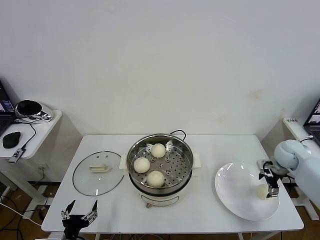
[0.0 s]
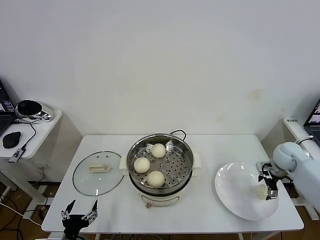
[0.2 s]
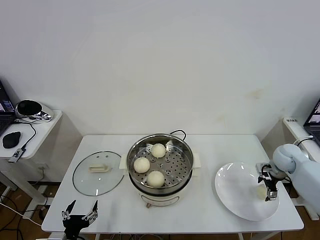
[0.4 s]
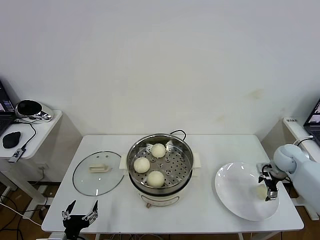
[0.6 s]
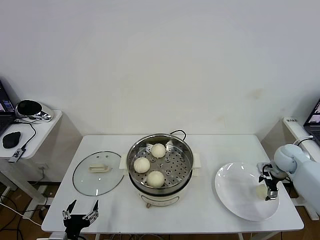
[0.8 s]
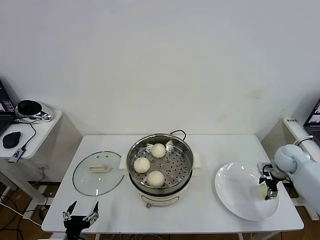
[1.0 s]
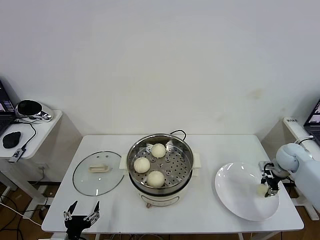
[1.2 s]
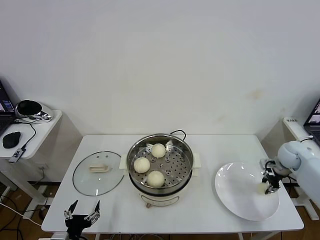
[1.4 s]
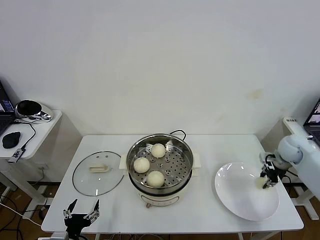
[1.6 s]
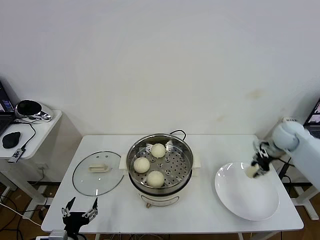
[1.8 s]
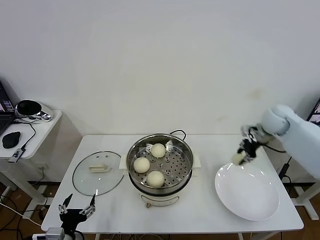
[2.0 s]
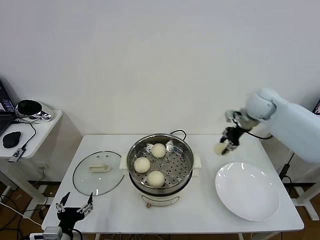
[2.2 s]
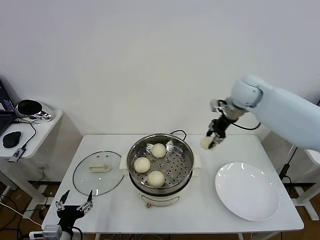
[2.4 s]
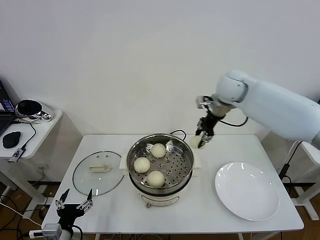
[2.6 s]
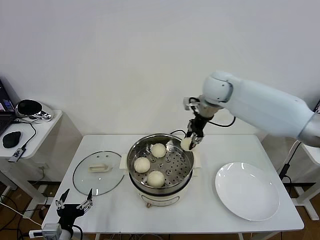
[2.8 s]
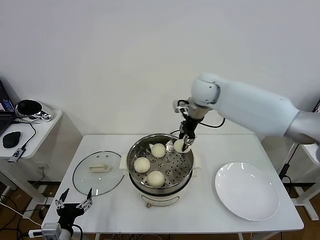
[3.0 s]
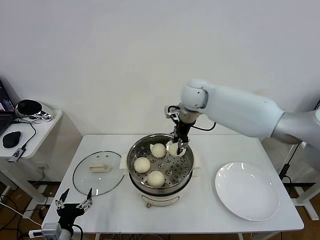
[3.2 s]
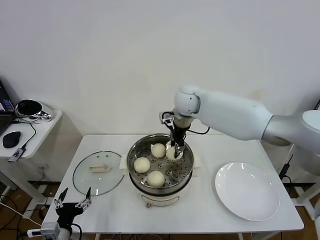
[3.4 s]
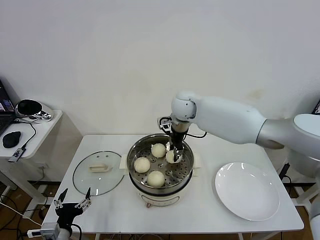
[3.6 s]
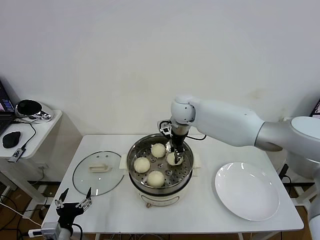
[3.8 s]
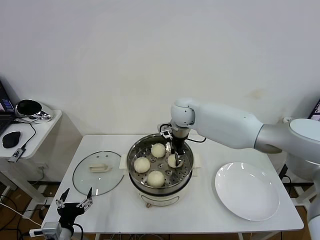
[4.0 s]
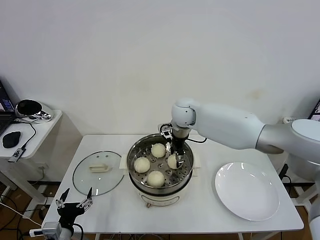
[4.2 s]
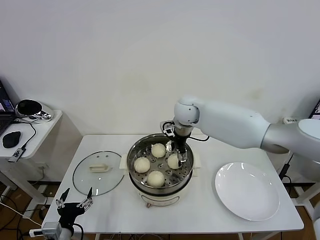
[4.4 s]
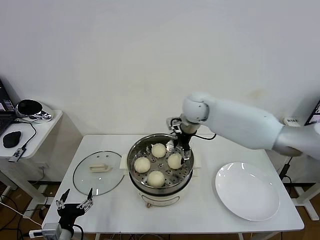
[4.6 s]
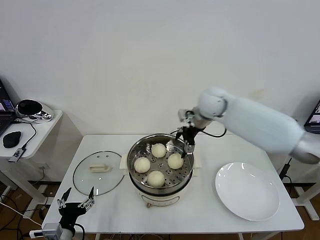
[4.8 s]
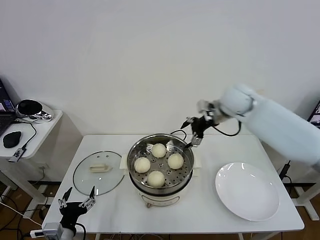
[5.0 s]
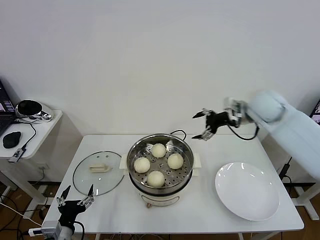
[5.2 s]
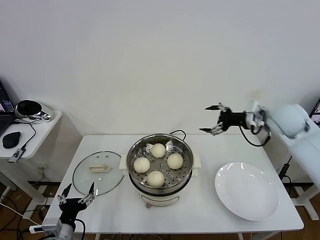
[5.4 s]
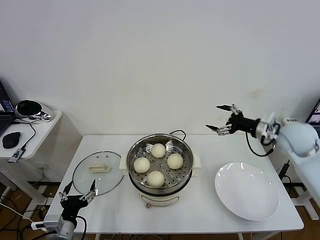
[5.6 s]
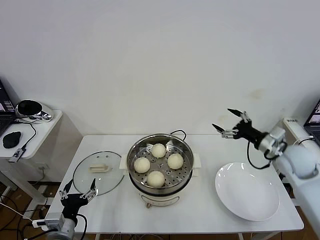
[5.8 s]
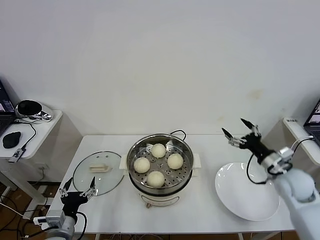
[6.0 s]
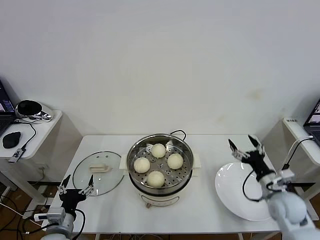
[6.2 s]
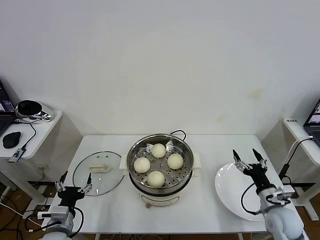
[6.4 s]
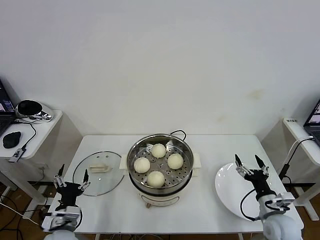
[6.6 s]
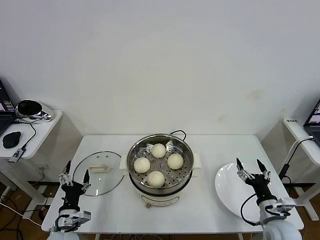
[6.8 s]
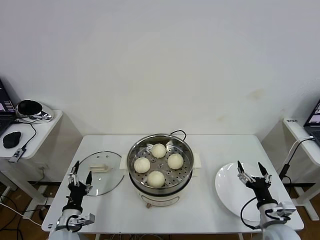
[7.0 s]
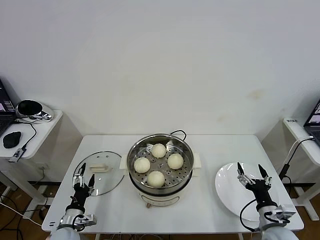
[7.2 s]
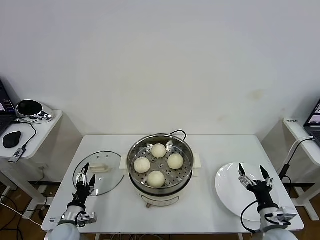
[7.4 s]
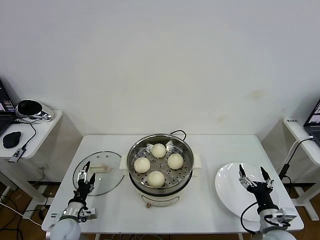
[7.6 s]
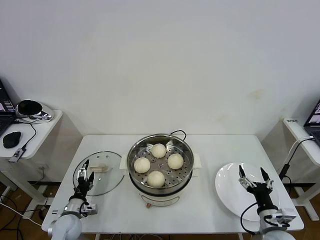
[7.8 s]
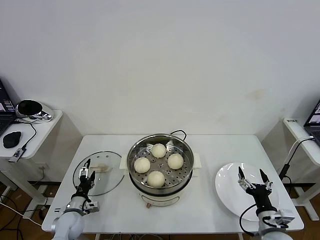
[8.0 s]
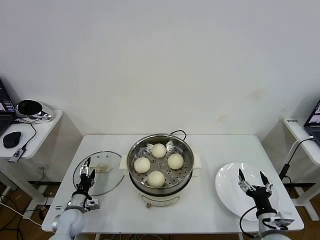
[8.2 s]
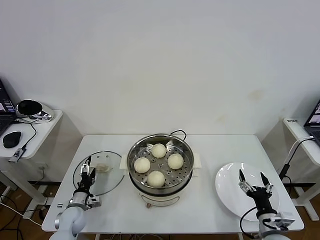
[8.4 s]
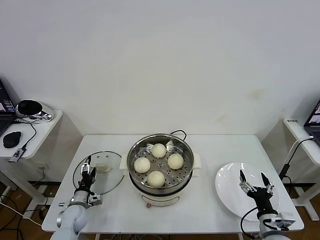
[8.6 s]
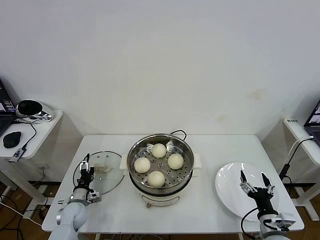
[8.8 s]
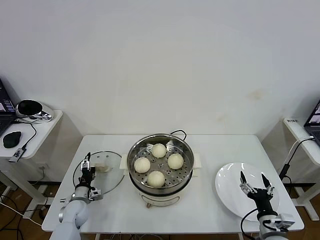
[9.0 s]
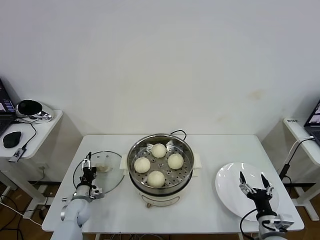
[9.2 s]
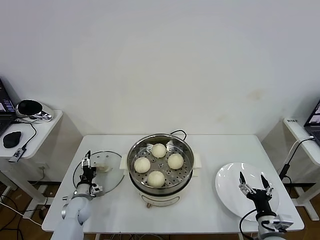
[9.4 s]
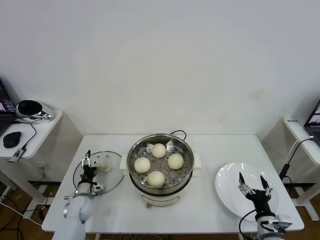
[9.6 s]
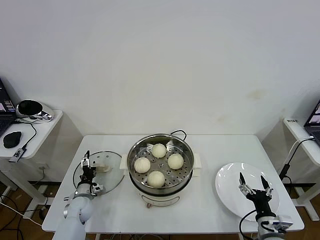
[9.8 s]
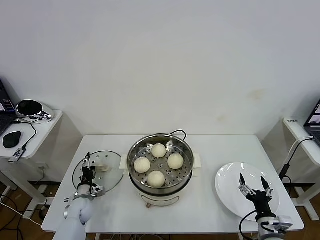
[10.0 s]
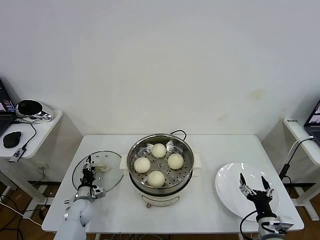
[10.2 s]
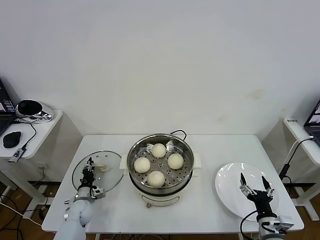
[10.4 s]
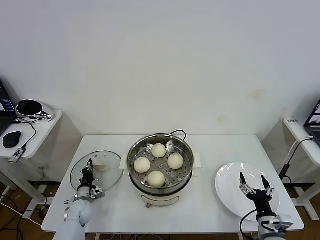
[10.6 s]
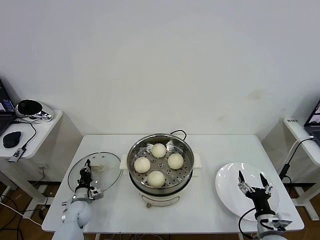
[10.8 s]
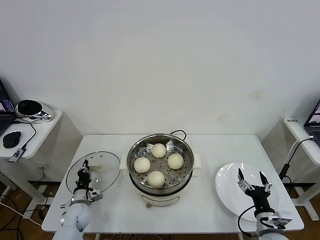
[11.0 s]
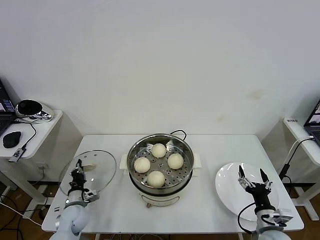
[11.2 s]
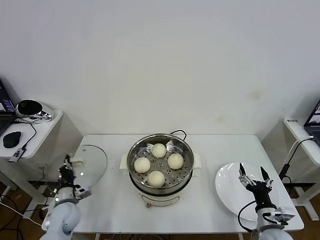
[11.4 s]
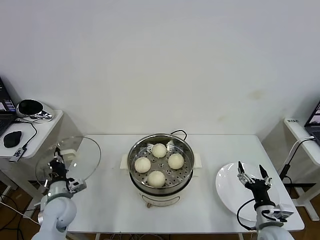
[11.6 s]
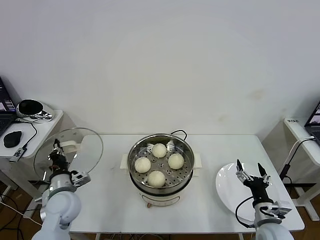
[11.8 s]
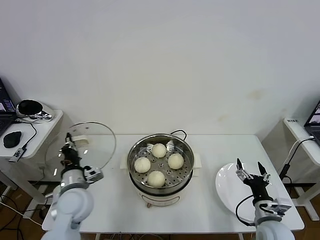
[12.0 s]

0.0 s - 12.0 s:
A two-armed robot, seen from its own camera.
Task of the whole recording: take steamed baozi put them in steamer then cover it.
Step, 1.4 s - 4.8 s: Place the baozi on the steamer with right gripper.
Step, 5.0 s - 10.8 s: Grasp the pot lid with left gripper.
0.0 s - 1.6 s: The right gripper closes.
1.6 s - 3.0 s: The right gripper heads to the left and upward, covering roughly 35 cm.
3.0 s - 4.4 s: The right gripper heads downward, covering some 5 cm, and opens up.
4.4 s - 6.0 s: The right gripper shifts about 40 cm to the right, backward and downward.
6.0 s - 7.6 s: The right gripper travels backward and downward by about 20 cm; the left gripper goes approximately 15 cm downward and forward.
7.6 s - 9.0 s: The left gripper moves forward, some 10 cm.
9.0 s - 10.4 s: The left gripper closes.
10.4 s - 12.0 s: The left gripper heads upward, covering about 20 cm, and closes its fingers, while the right gripper moves approximately 5 cm.

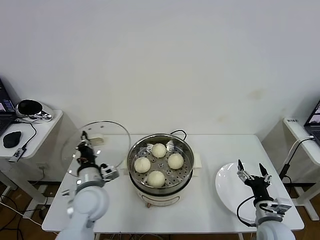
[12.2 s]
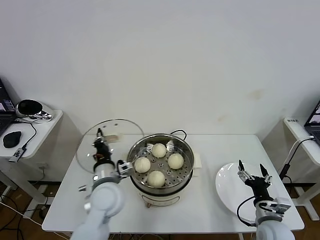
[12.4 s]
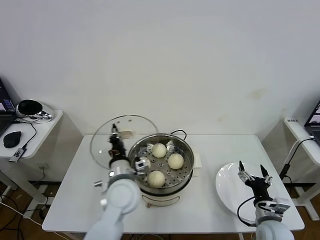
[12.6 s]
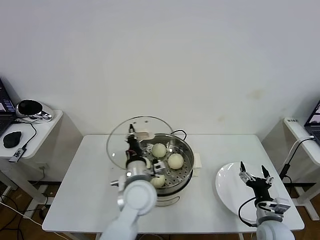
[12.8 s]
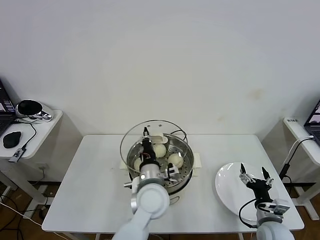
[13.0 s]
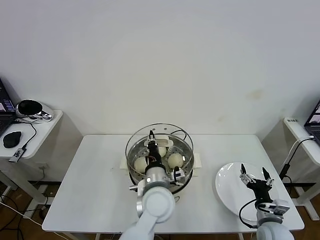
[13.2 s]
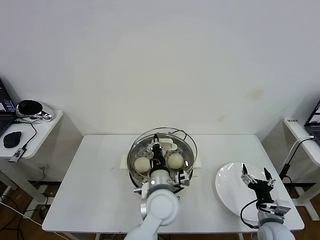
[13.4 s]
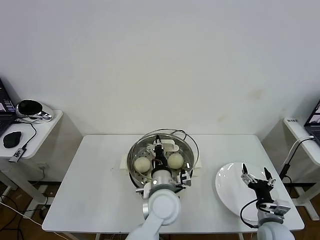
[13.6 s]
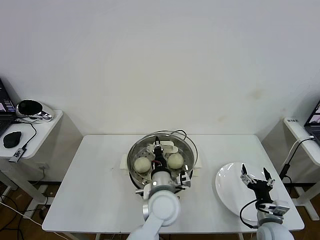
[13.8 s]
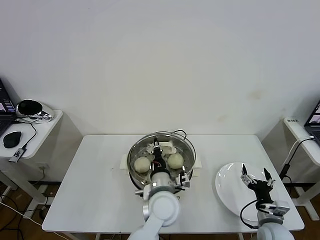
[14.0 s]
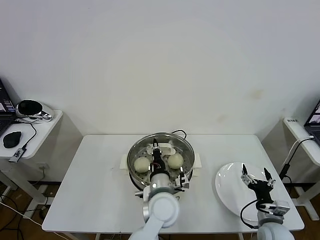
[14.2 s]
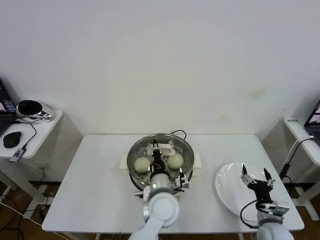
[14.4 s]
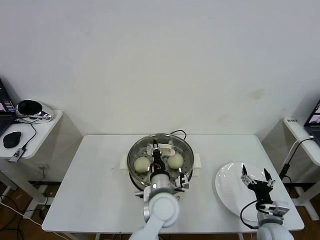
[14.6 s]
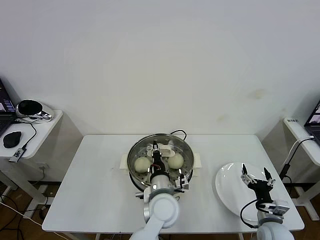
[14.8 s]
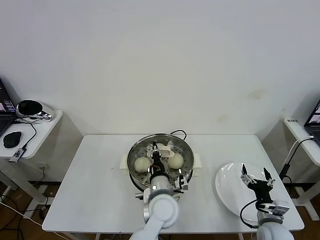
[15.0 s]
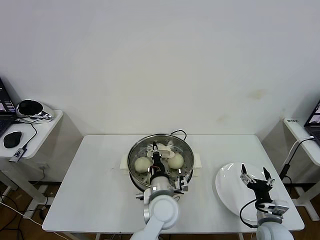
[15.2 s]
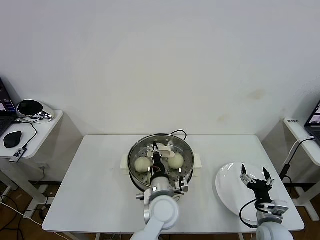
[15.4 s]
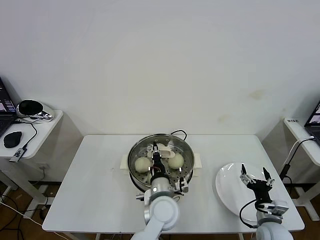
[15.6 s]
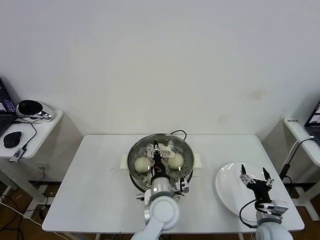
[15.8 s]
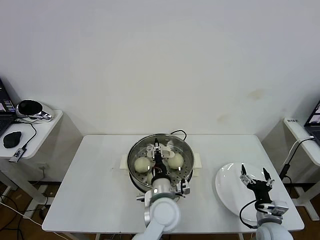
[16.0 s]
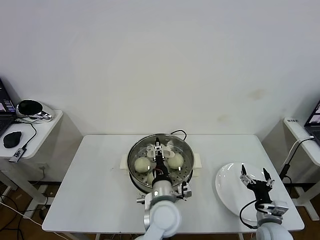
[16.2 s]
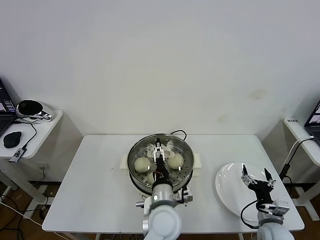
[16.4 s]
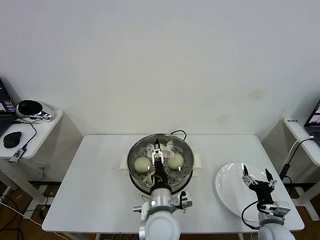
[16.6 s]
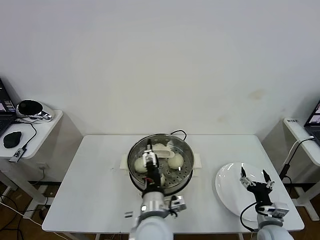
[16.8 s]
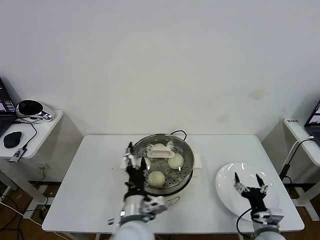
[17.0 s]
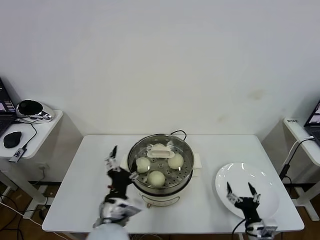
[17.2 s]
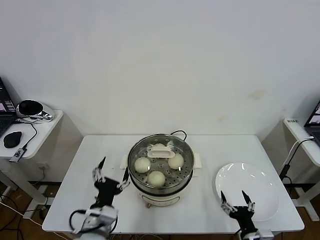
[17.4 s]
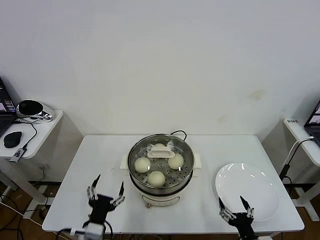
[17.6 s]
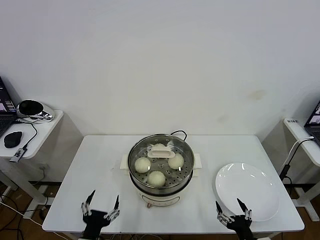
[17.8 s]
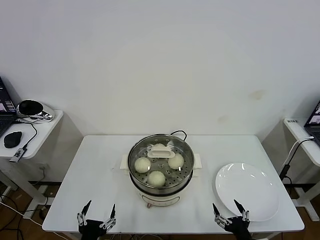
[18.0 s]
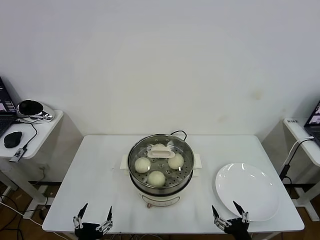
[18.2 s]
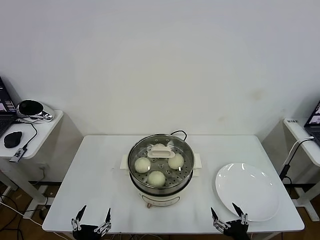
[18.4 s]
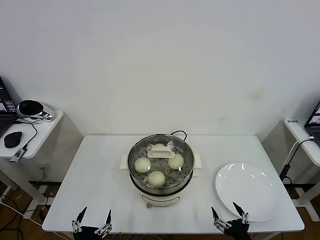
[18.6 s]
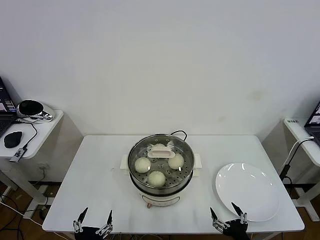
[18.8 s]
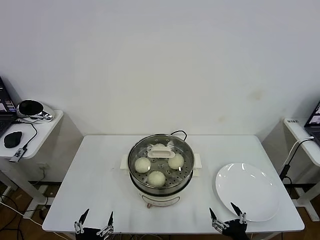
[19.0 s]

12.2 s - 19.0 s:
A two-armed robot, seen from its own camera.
Task of the whole recording: take steamed baozi put them in steamer then cover it.
Step, 12.2 s - 16.6 s: Place the pot lid on the steamer with left gripper.
12.2 s - 13.6 s: The left gripper heads to the right, covering roughly 20 cm.
13.6 s - 15.0 s: The grippers stay close to where they were, moving slightly.
15.0 s - 16.2 s: The left gripper opens up.
16.2 s - 17.6 s: The right gripper goes some 10 cm backward and to the left. Meanwhile the left gripper moves to the left and backward, some 25 cm, and opens up.
17.6 s - 19.0 s: The left gripper moves backward, approximately 10 cm.

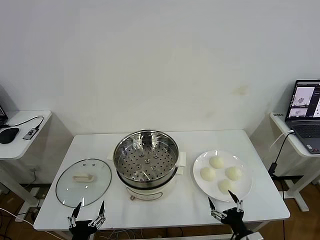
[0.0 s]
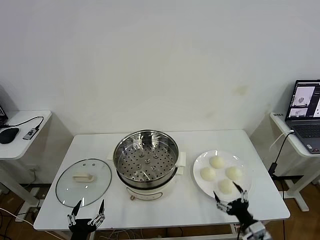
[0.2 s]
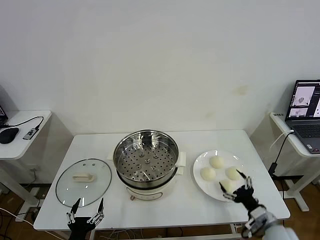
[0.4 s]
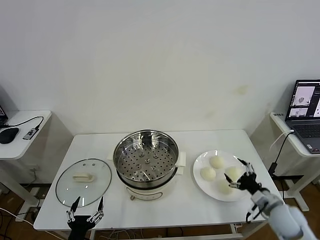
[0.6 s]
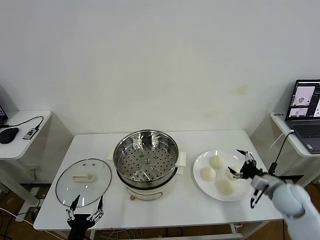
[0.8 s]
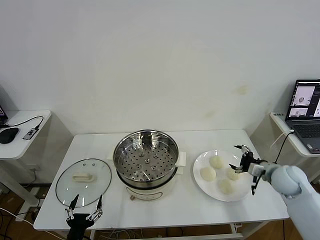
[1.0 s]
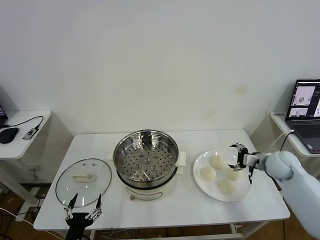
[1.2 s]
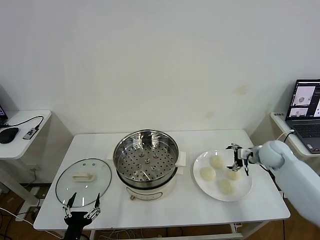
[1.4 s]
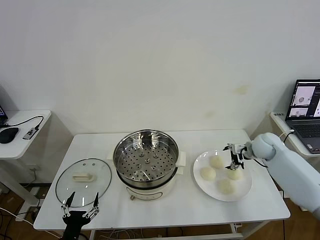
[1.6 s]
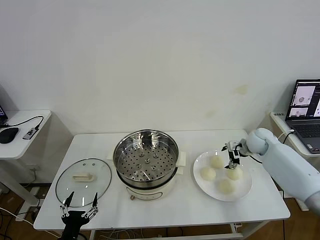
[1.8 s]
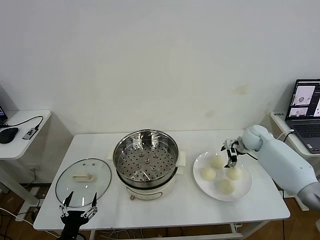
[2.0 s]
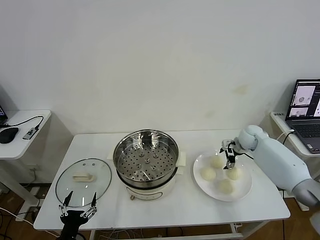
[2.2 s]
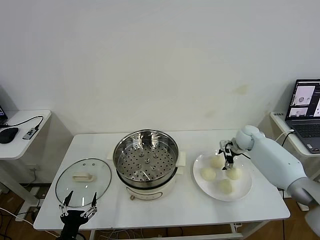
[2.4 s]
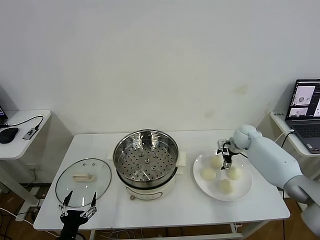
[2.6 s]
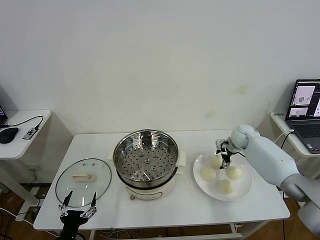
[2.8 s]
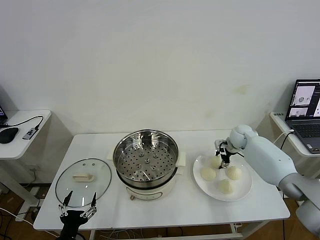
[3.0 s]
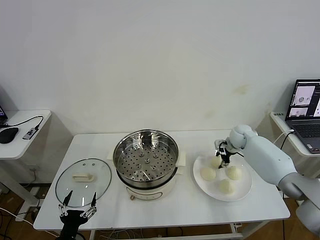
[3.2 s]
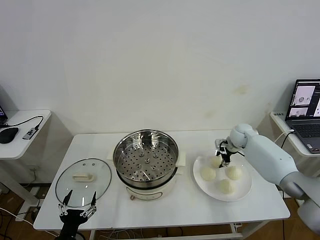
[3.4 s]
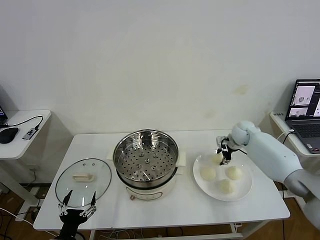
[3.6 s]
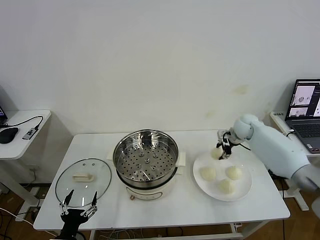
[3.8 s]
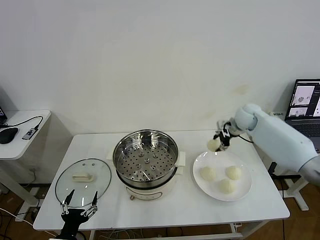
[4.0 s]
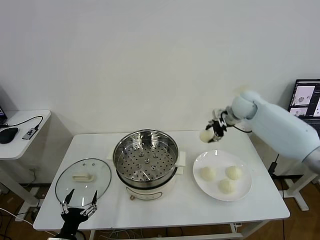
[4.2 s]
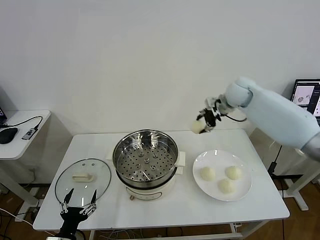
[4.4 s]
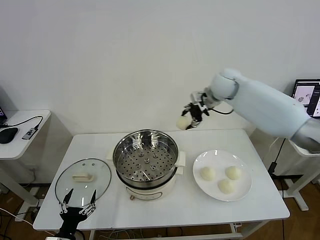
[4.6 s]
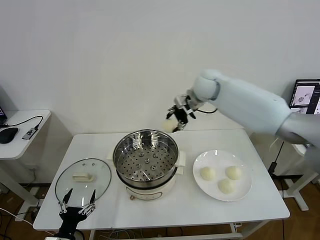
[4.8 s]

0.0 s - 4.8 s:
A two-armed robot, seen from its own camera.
Task of the whole recording: take steamed baozi put them in steamer then cover it.
Step, 0.0 s - 3.4 s: Grasp the baozi in the plate with right gripper.
1.6 s - 3.2 s: The right gripper moves forward, approximately 5 cm, and closes.
3.2 s - 4.8 s: The right gripper goes roughly 30 cm to the left and upward.
